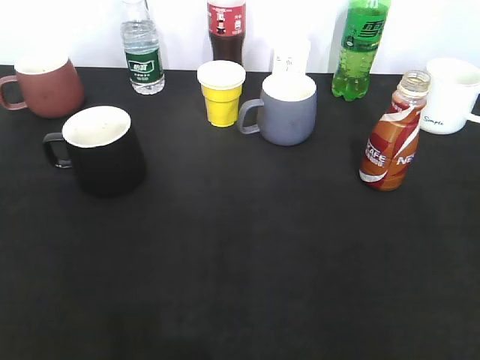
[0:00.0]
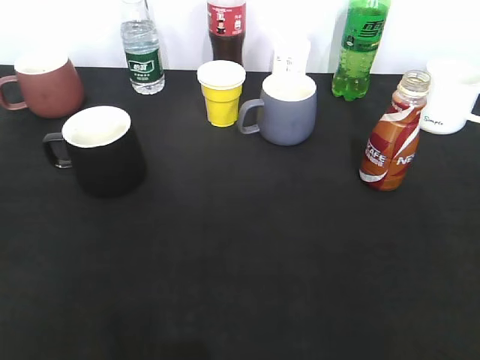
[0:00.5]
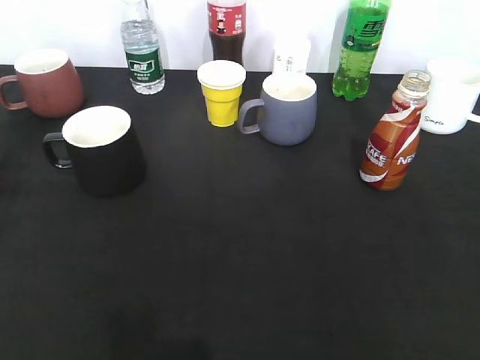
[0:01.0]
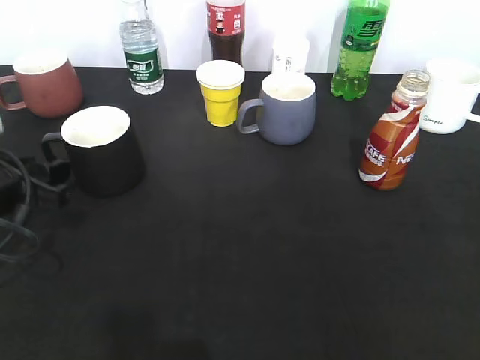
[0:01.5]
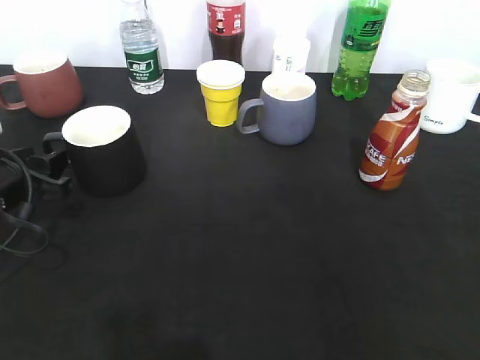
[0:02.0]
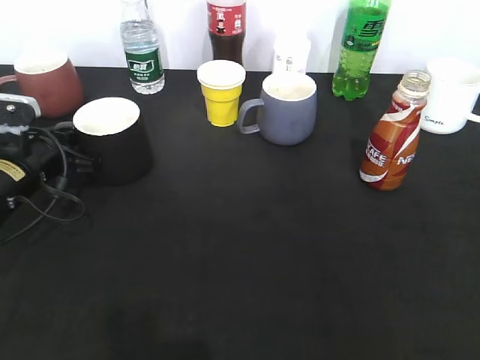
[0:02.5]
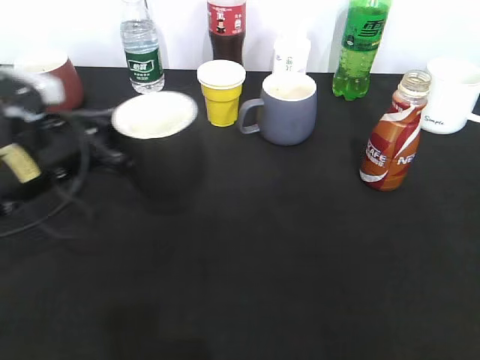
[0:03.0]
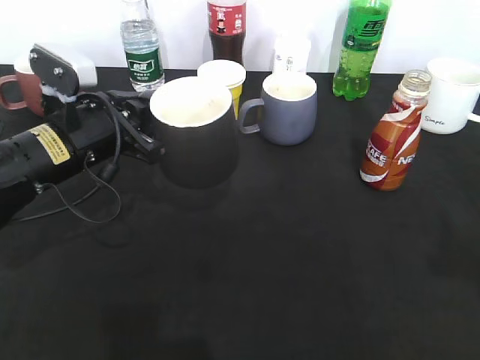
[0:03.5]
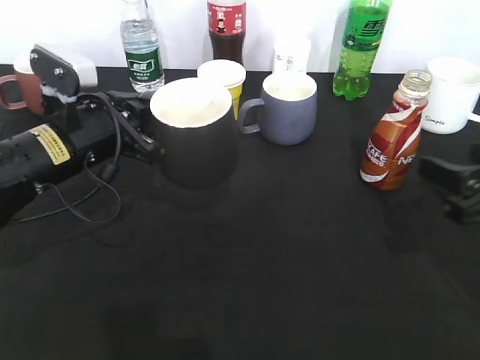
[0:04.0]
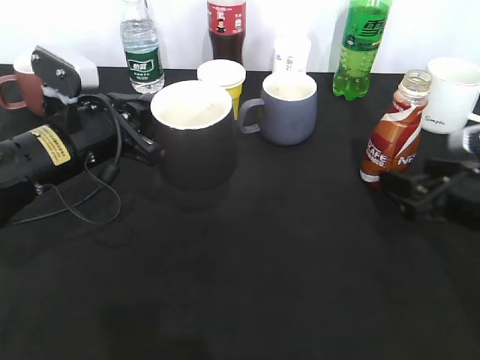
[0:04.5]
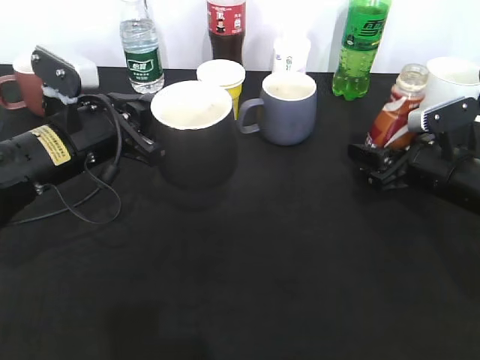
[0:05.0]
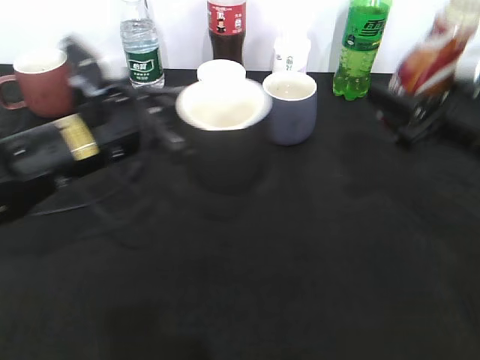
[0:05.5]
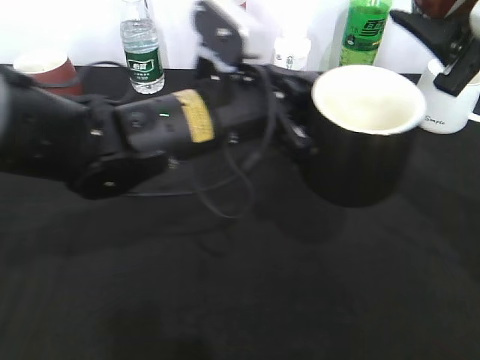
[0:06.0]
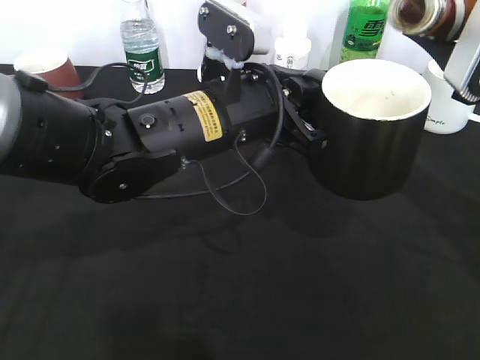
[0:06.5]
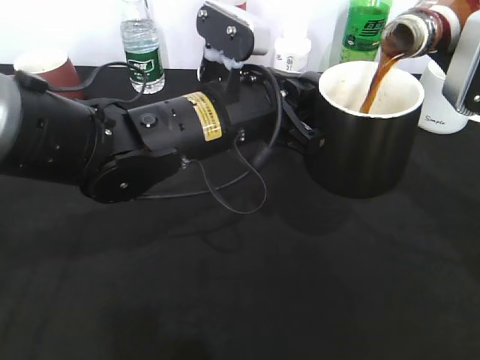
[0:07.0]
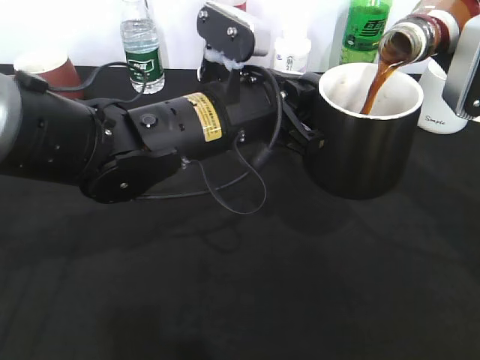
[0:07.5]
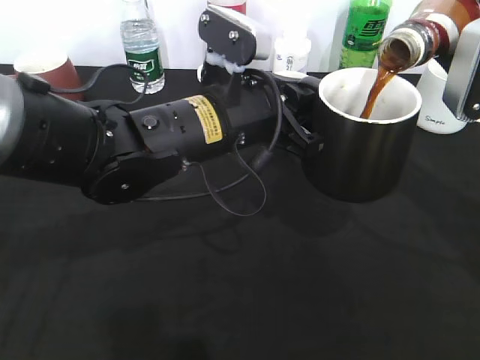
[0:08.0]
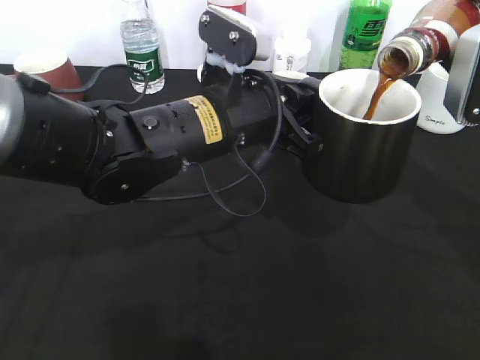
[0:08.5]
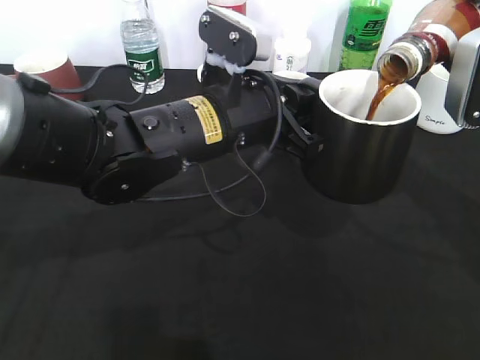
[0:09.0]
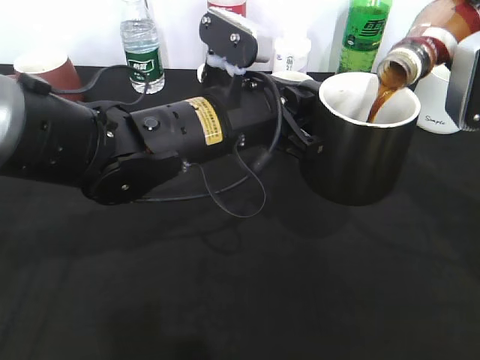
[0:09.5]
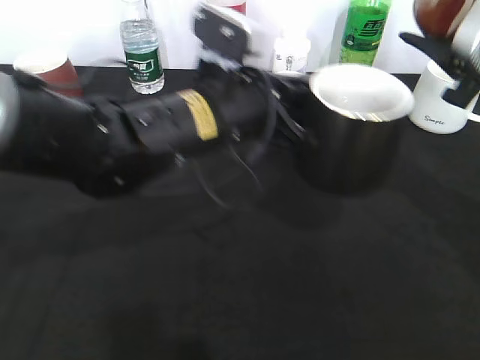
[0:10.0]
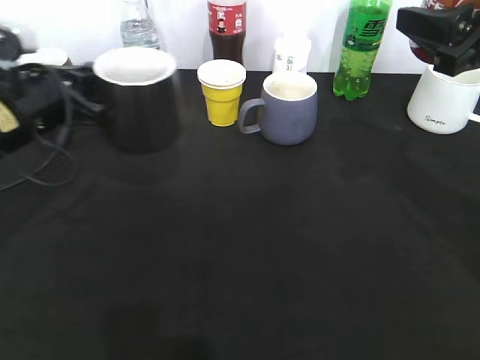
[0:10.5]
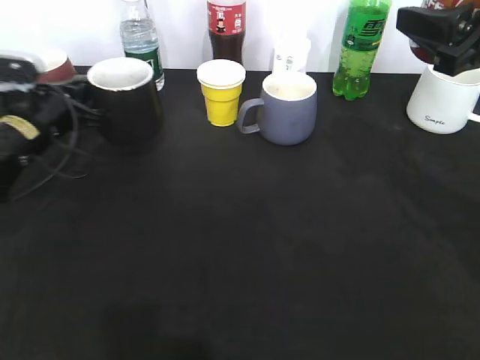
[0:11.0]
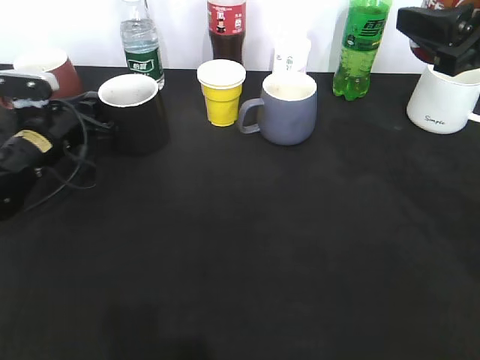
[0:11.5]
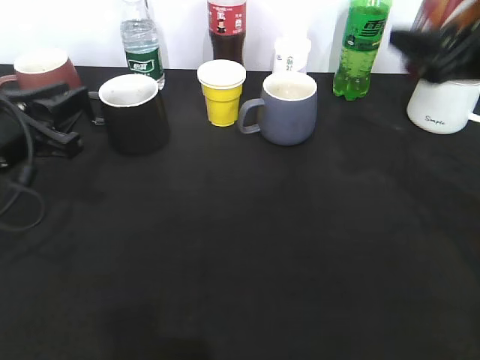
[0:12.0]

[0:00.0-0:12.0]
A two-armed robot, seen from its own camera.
Step, 0:01.0 to 0:02.5: Grasp the black cup with left gripper.
Step, 0:03.5 to 0:05.0: Grasp the bottle with coffee with right gripper.
Step, 0:05.5 to 0:10.0: Pour the coffee from bottle to cup with right gripper.
Step, 0:10.5 to 0:11.5: Place the black cup on the table with left gripper.
0:00.0 to 0:02.0: The left gripper goes about 30 cm forward and downward, and opens.
0:02.0 to 0:04.0: The right gripper is displaced forward and downward by some 25 cm; the left gripper heads to the right, covering approximately 10 cm, and closes.
0:04.0 to 0:06.0: The left gripper moves to the right, about 15 cm. Meanwhile the right gripper travels upward and forward by about 15 cm, and closes its fingers.
0:10.0 to 0:12.0: The left gripper shifts approximately 20 cm to the left, and opens up.

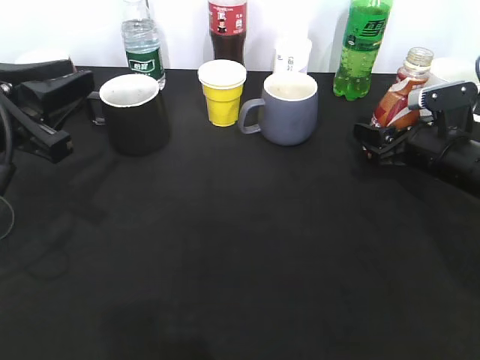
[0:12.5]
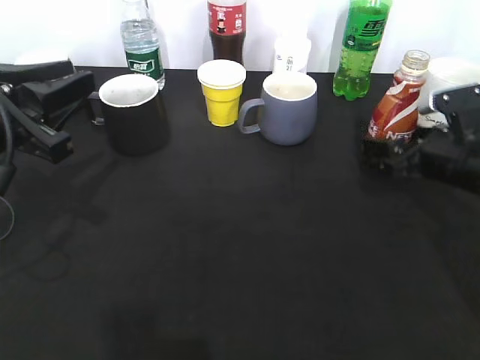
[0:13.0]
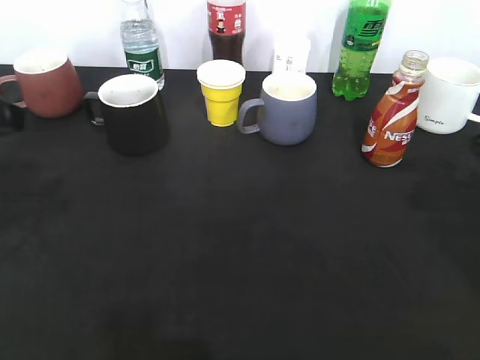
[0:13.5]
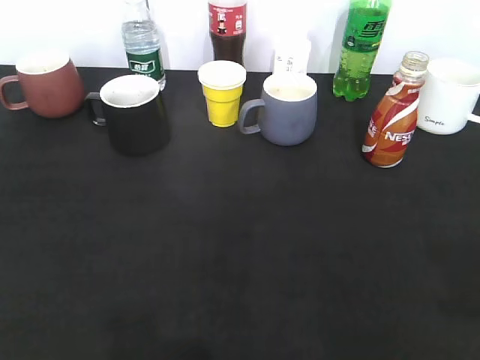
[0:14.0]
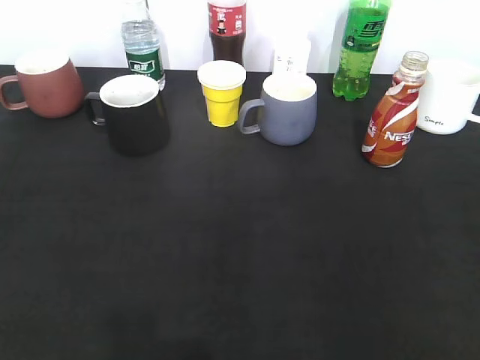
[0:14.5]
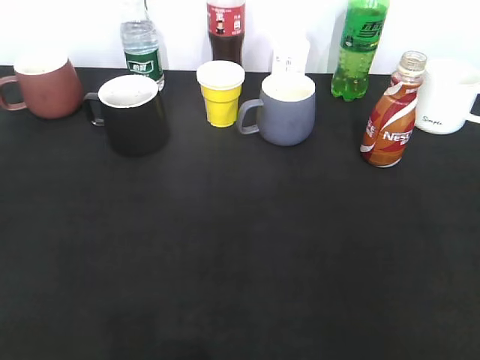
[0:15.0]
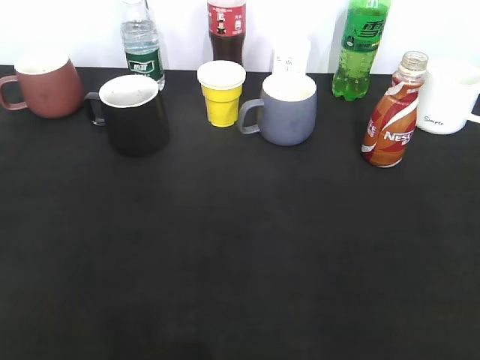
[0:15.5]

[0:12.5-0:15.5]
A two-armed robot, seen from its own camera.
0:12.5 to 0:14.0: The right gripper heads backward and upward, covering roughly 35 cm, and opens. The left gripper travels backward, upward and to the left by approximately 20 cm, and opens its fingers.
0:14.0 to 0:15.5: The right gripper heads backward and downward, covering approximately 10 cm. Meanwhile the left gripper is displaced downward by approximately 5 cm, and closes.

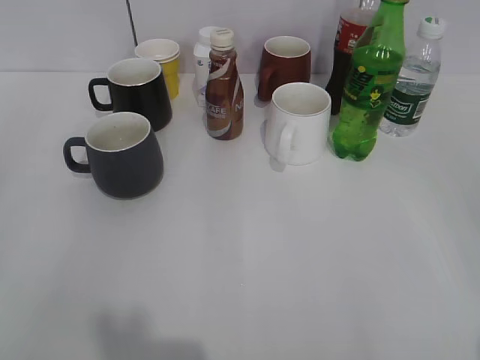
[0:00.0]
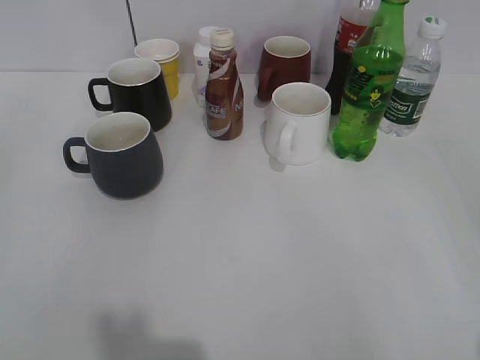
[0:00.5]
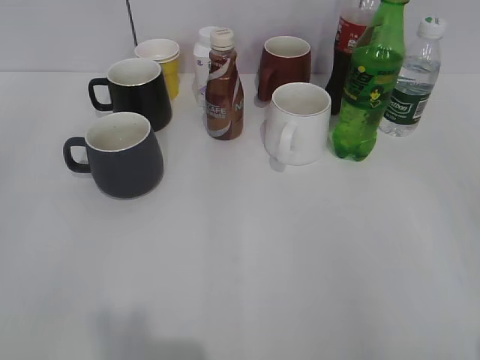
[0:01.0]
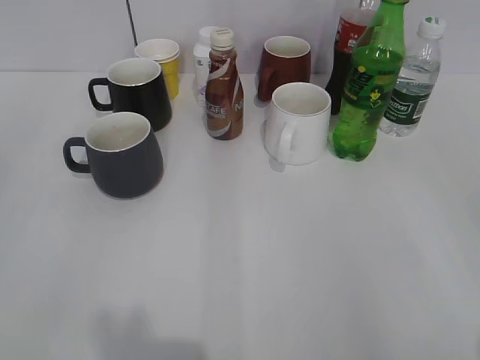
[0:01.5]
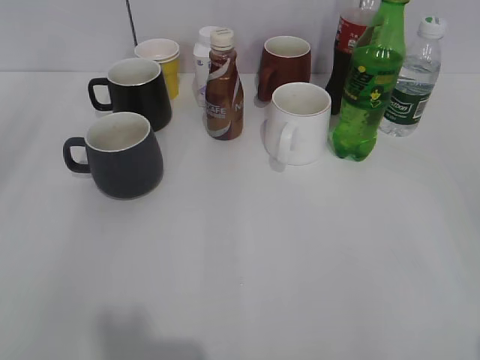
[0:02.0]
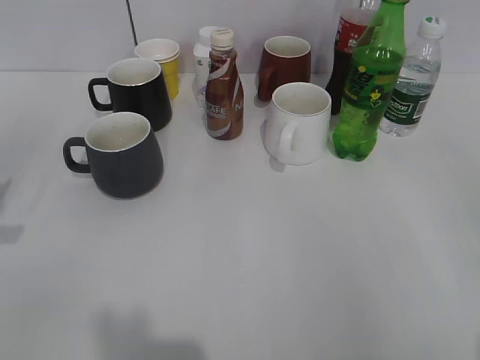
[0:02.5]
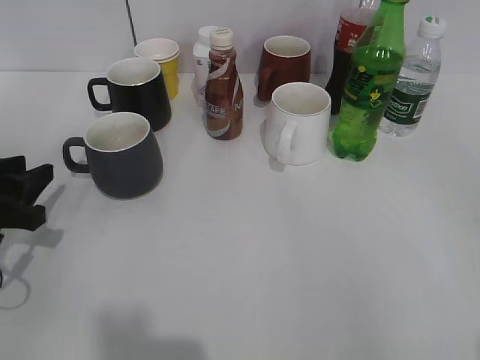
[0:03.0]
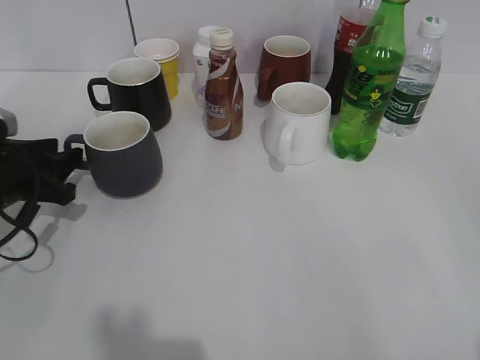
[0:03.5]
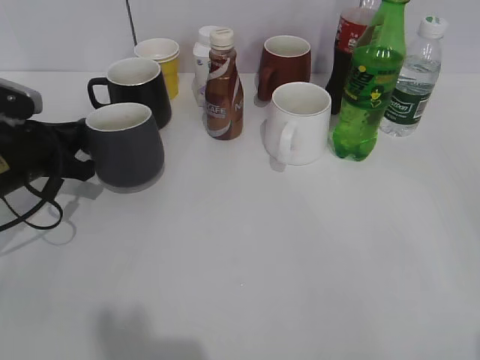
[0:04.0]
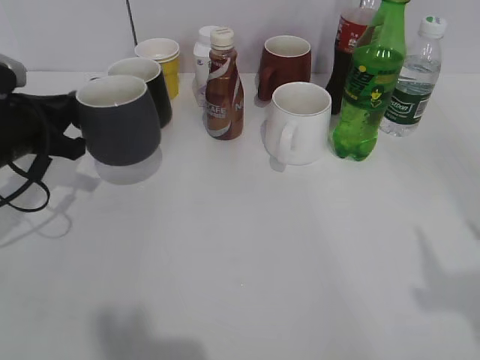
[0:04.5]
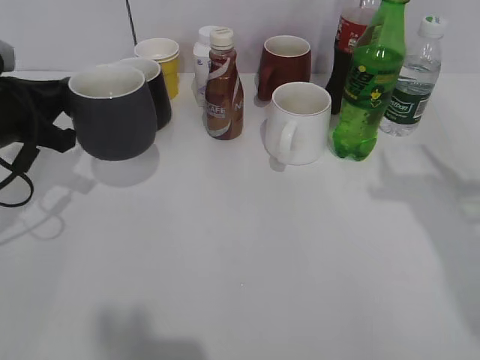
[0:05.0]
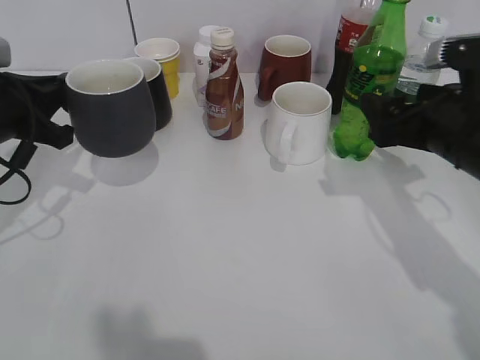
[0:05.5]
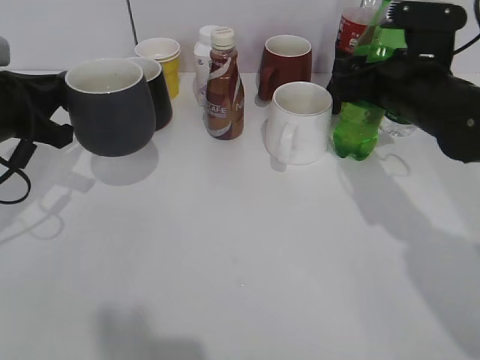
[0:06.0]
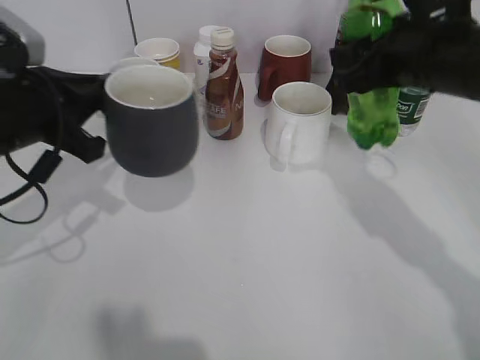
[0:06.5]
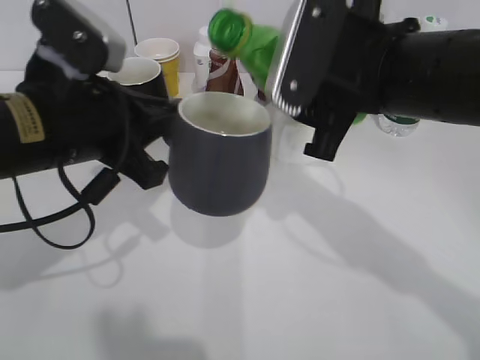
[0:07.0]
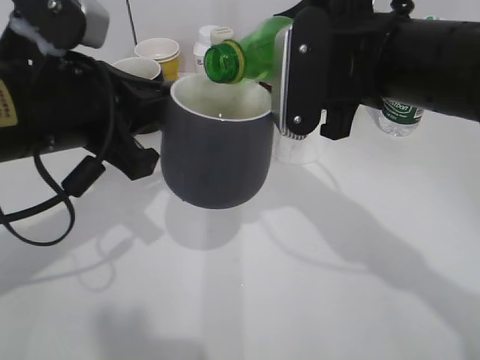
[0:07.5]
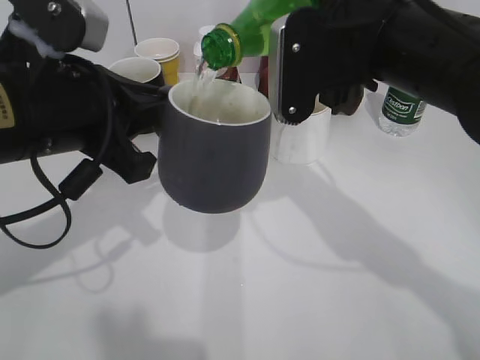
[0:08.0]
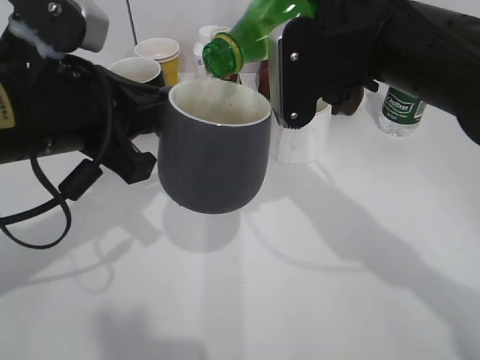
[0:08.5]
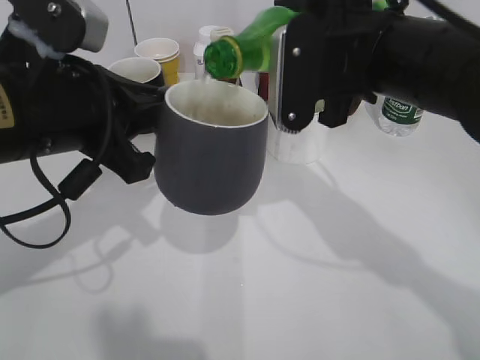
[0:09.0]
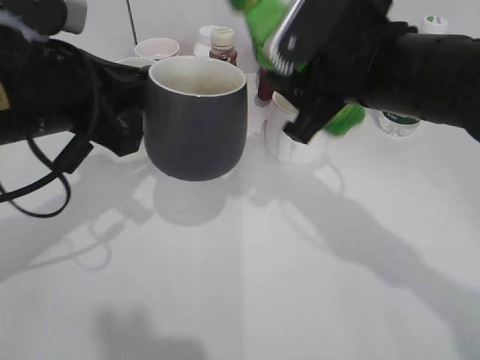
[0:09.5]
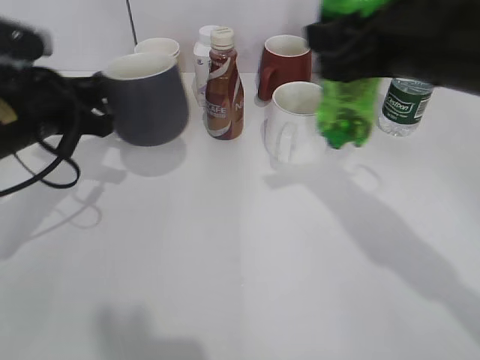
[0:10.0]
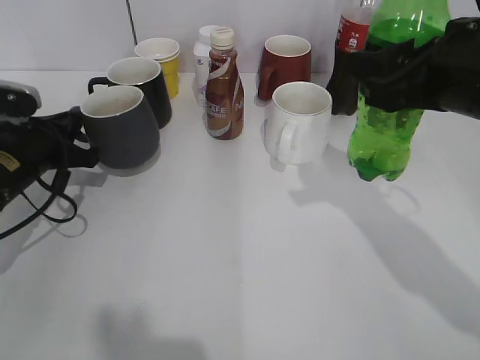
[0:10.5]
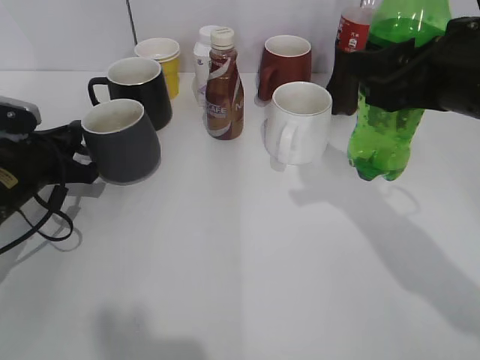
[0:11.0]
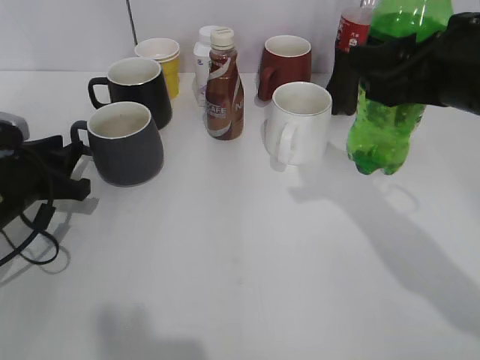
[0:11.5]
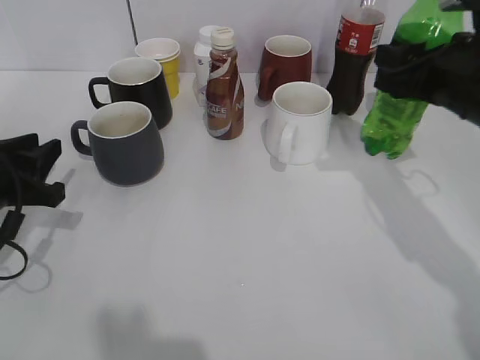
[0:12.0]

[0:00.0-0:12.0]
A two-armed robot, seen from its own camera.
Step, 0:02.0 to 0:04.0: Grasp the grey cup with left gripper.
Step, 0:06.5 to 0:09.0: Pour the sprite from bottle to cup with right gripper.
Step, 0:09.5 to 0:11.0: Place the grey cup on the table with left gripper.
0:02.0 to 0:04.0: The left gripper heads forward and downward, covering roughly 30 cm, and closes its fingers.
0:04.0 to 0:06.0: The right gripper heads forward, covering approximately 35 cm. Meanwhile the left gripper goes some 5 cm upward.
0:06.0 to 0:08.0: The left gripper heads to the right, backward and upward, covering some 15 cm, while the right gripper goes some 15 cm upward, to the left and backward, and closes.
0:08.0 to 0:10.0: The left gripper is displaced forward, to the left and downward by approximately 15 cm.
0:10.0 to 0:12.0: The left gripper shifts some 10 cm backward and downward, and opens up, while the right gripper is displaced to the right and downward by roughly 10 cm.
